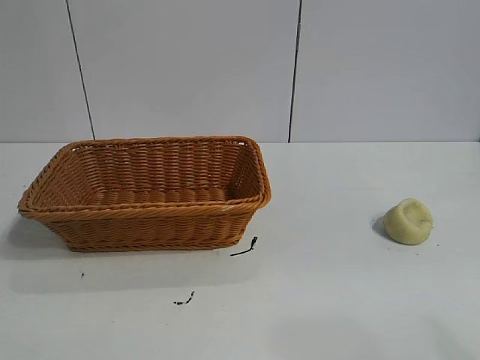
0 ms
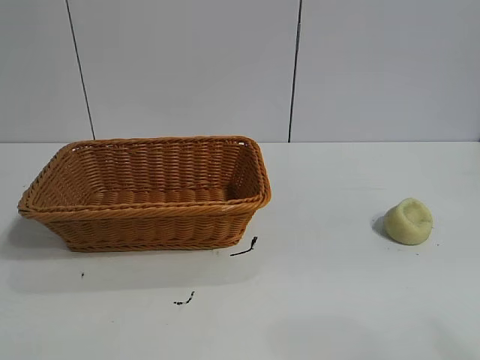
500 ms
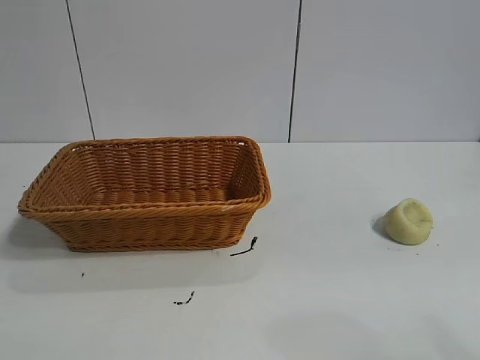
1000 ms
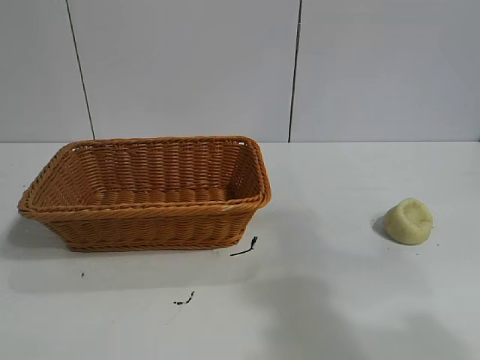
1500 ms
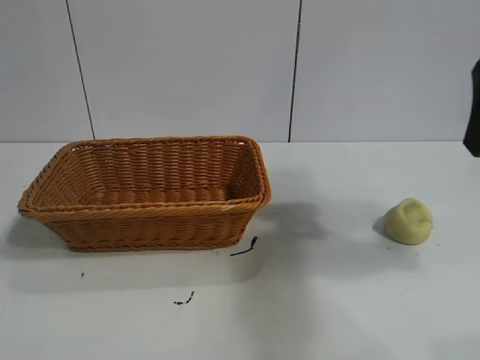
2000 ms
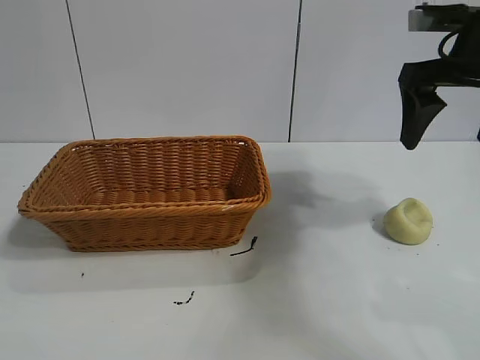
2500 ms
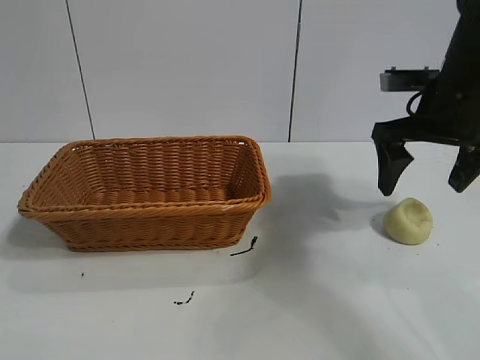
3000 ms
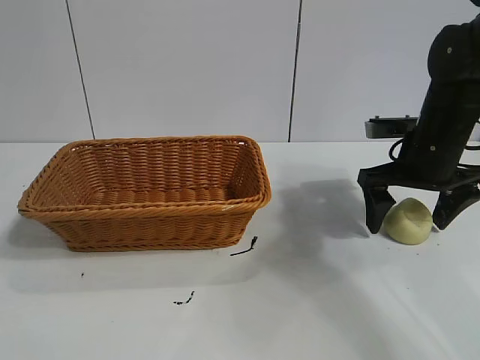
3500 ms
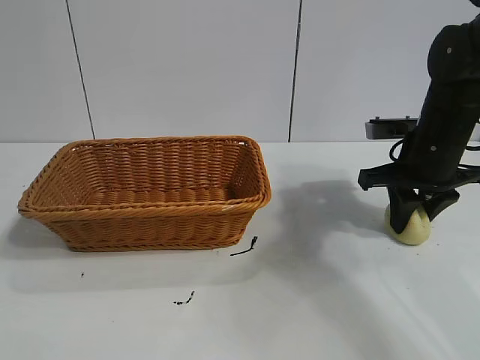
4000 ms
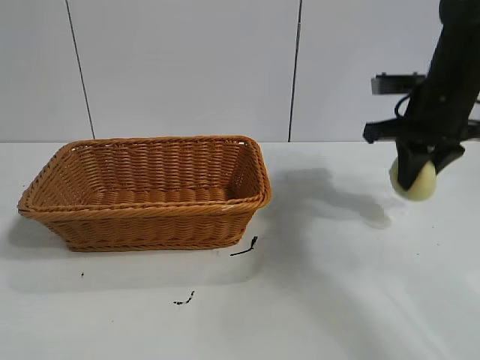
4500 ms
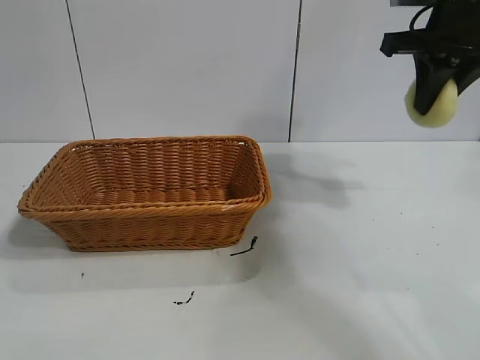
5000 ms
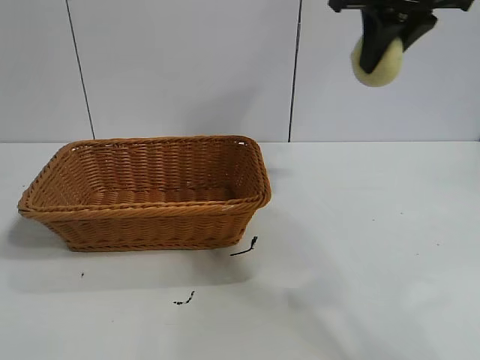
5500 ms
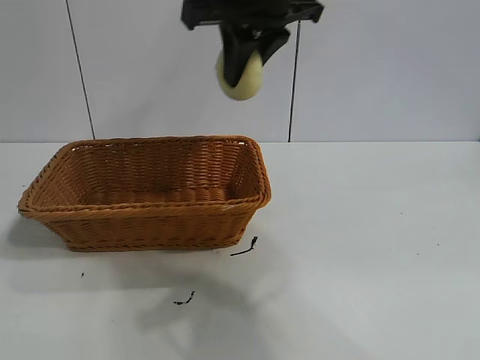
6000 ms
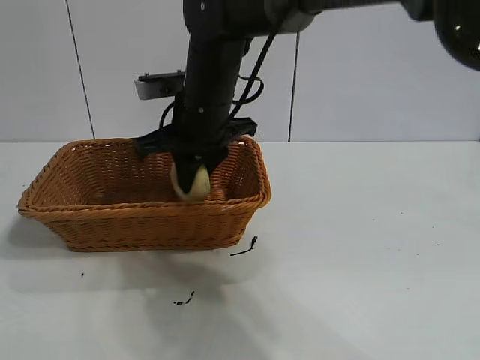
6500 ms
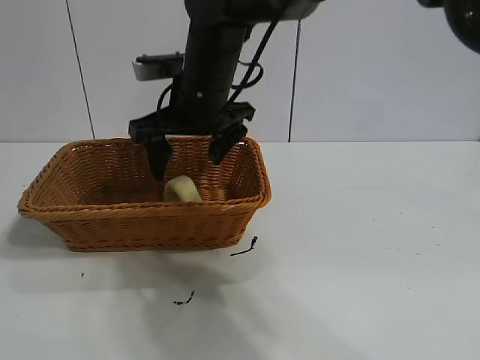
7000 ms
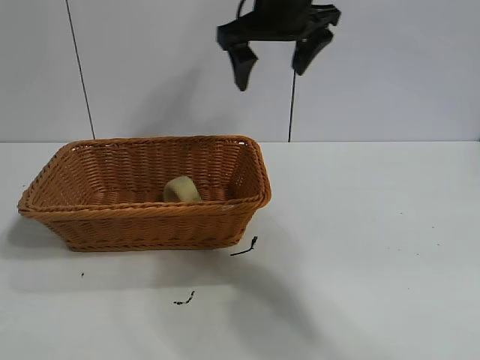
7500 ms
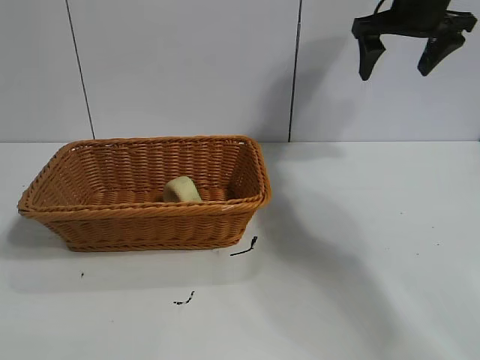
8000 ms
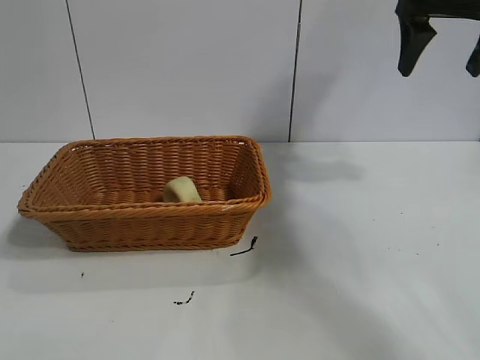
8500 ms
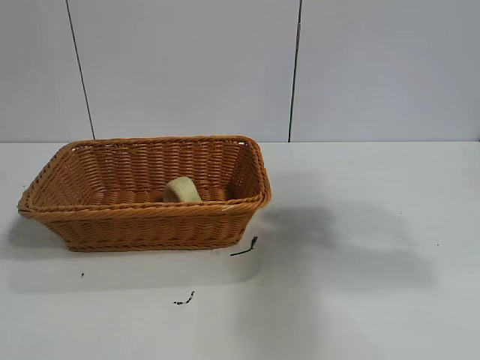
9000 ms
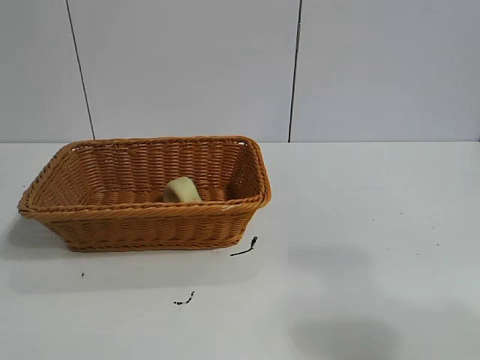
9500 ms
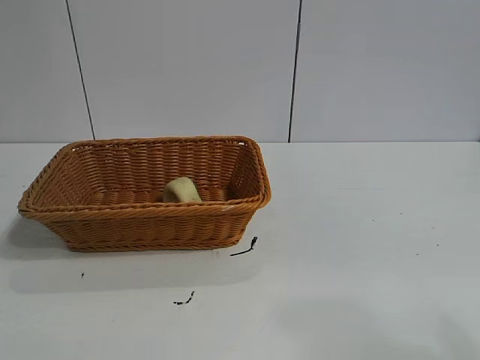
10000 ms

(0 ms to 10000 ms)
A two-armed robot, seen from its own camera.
Task of the whole recording: pick up the egg yolk pastry and put it into the basket.
Step, 1000 ms - 4000 ms: Grasp egg yolk pastry with right gripper.
Step, 4500 ms - 6500 ms: Place the egg yolk pastry in the basket with right gripper.

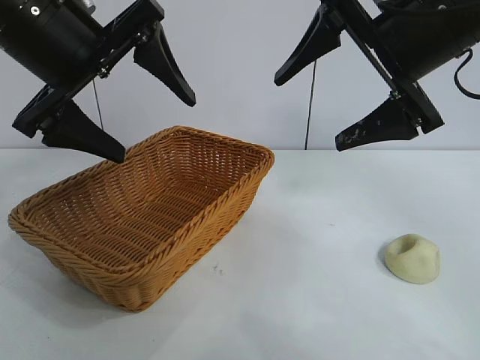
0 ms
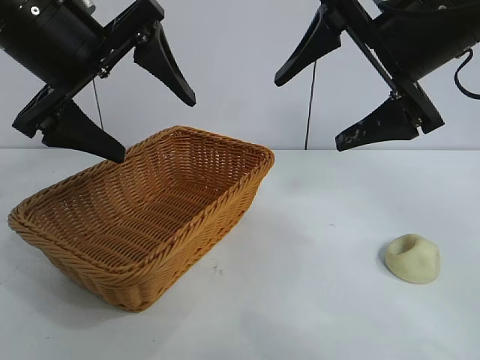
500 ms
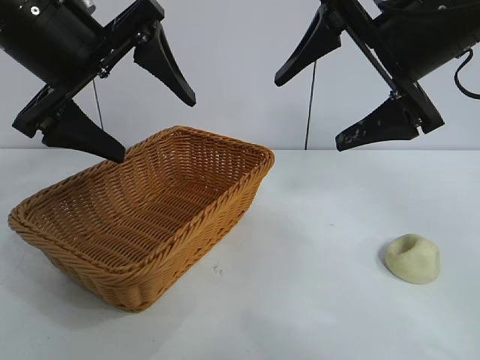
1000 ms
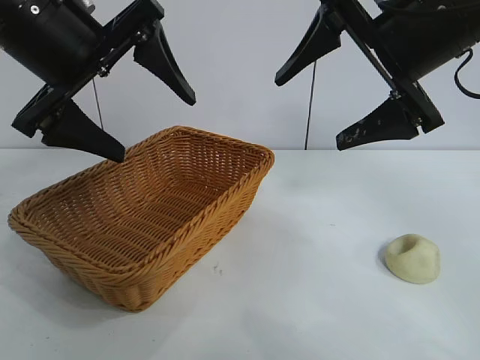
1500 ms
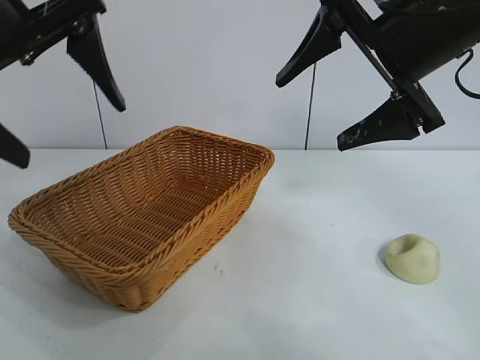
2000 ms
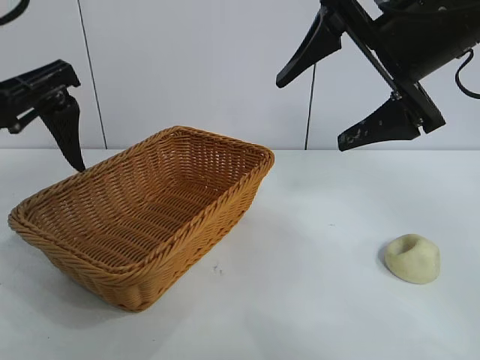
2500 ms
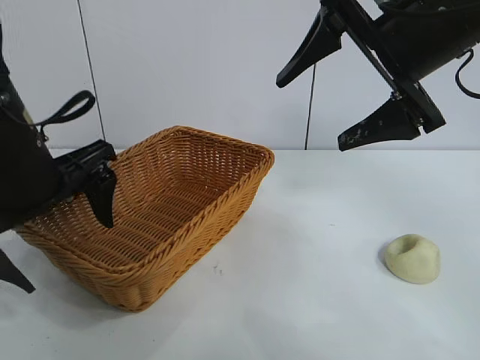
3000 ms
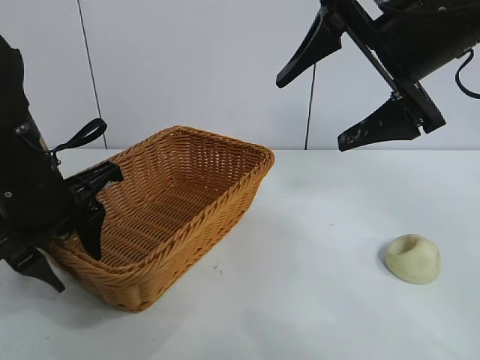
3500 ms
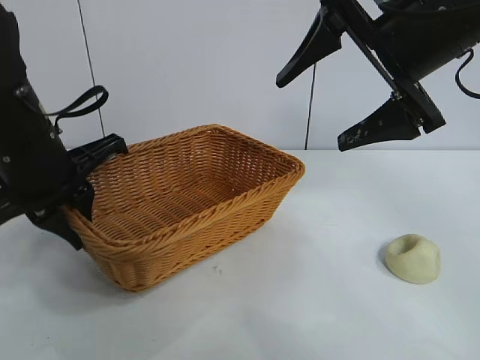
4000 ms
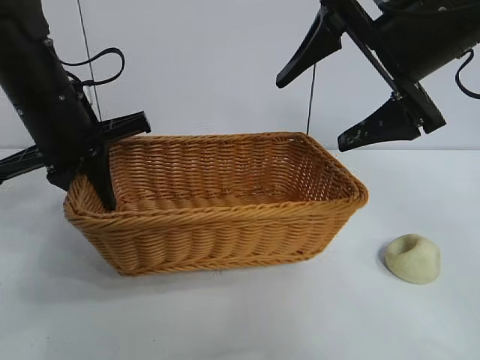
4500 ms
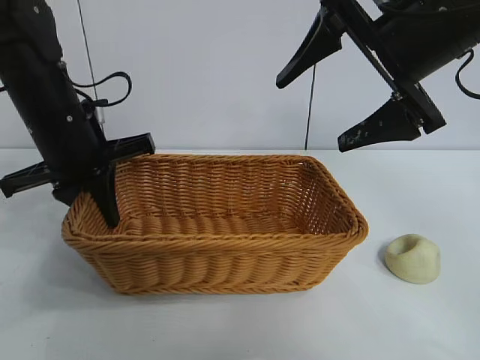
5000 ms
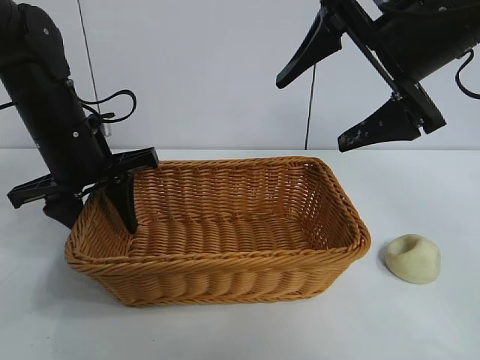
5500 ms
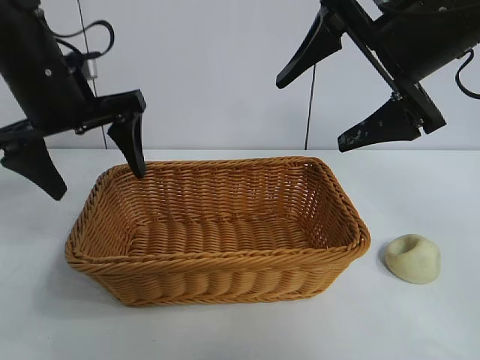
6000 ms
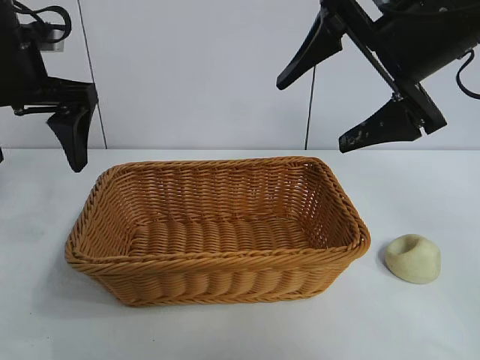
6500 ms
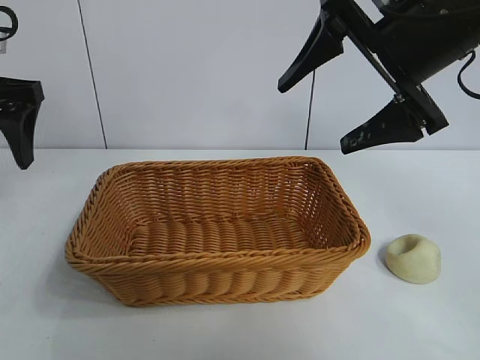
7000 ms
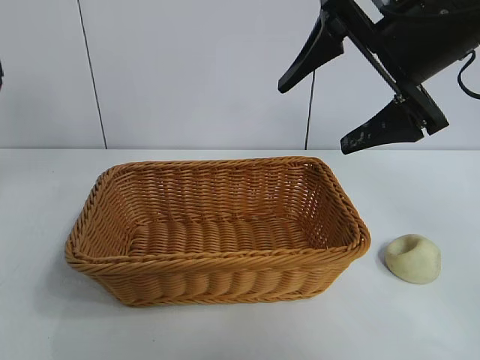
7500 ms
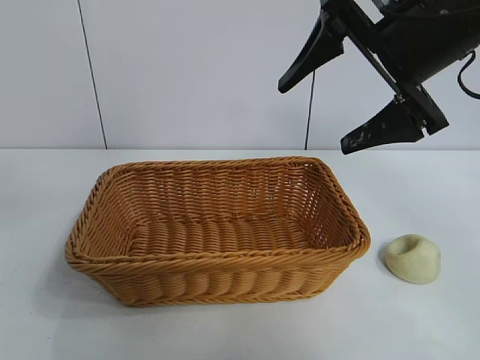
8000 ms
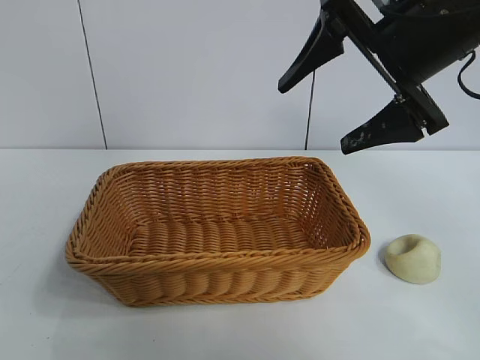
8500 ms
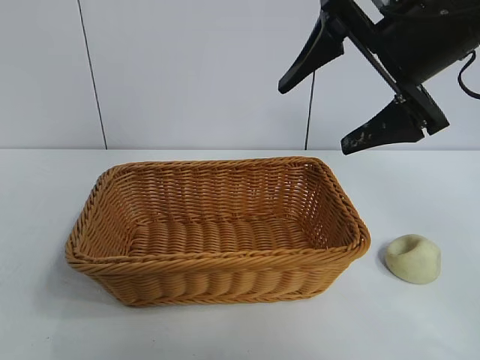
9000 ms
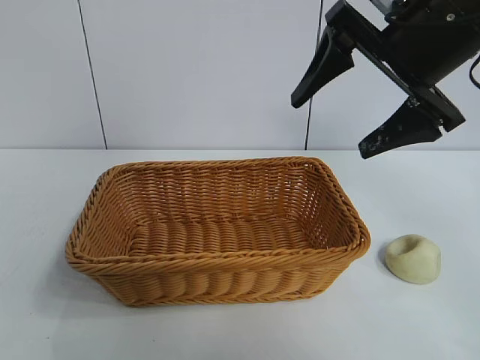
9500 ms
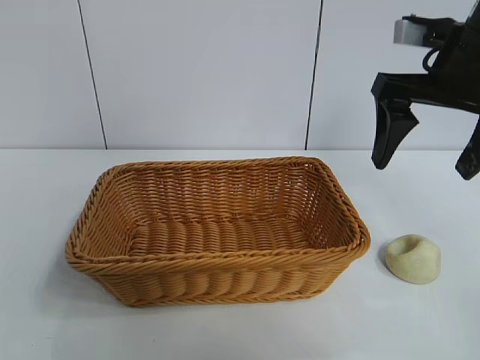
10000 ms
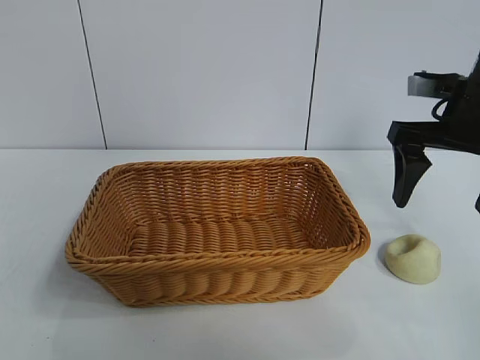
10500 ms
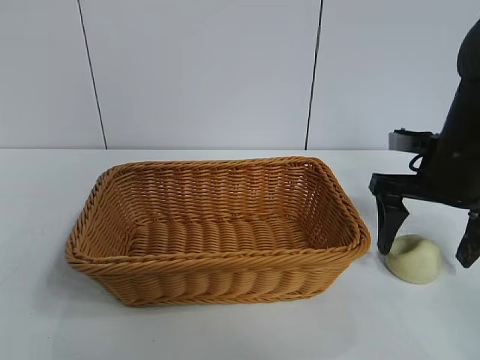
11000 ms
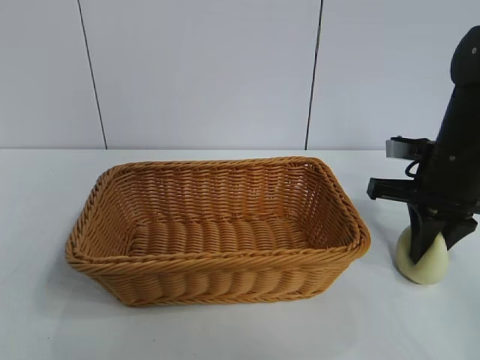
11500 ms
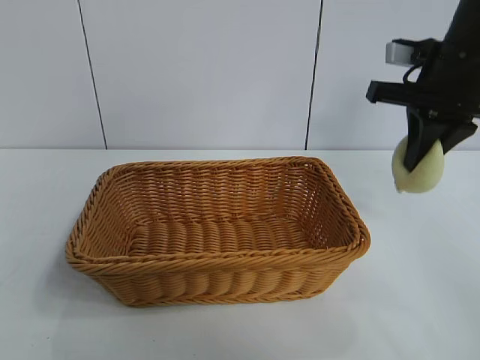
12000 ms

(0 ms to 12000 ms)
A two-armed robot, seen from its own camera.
Task of the whole recording: pick up the egg yolk pastry and put it into the basket.
Step, 1500 ms - 3500 ms: Grasp the basket with left gripper.
Step, 4000 ms - 5500 ms: Place the basket in the center of view with left gripper.
Step, 6000 ms - 11000 ms: Grasp egg yolk pastry with right gripper.

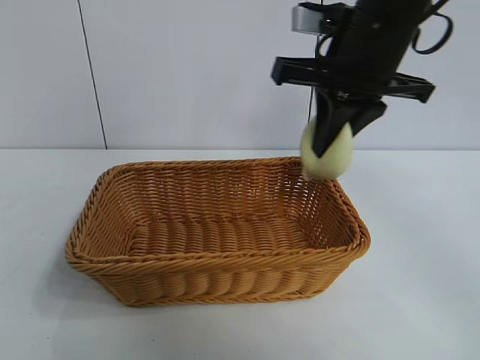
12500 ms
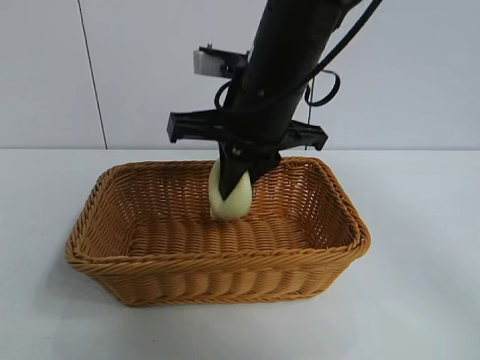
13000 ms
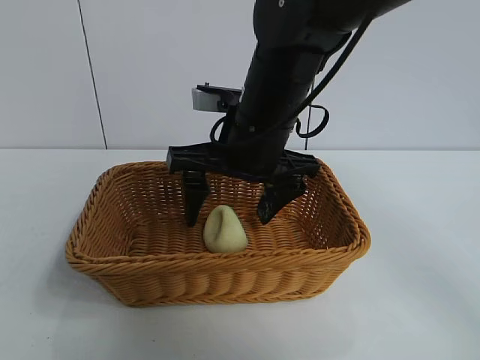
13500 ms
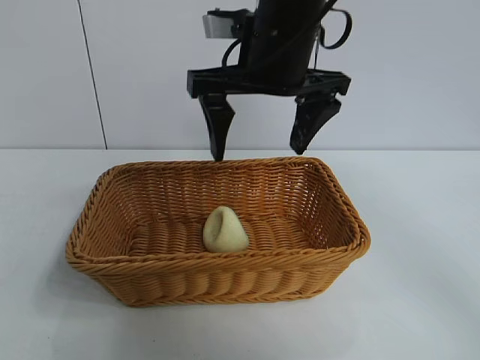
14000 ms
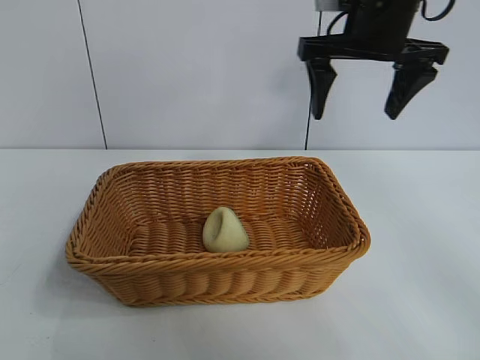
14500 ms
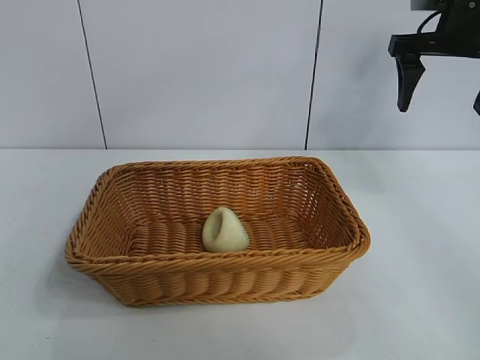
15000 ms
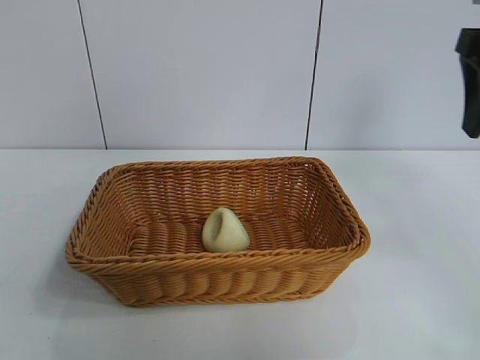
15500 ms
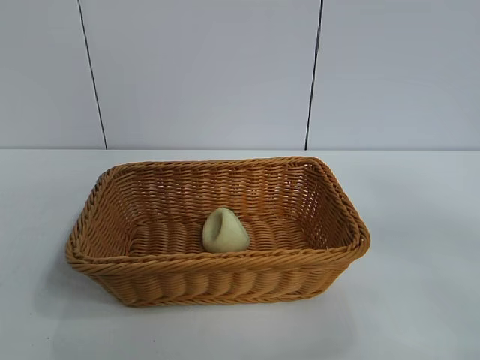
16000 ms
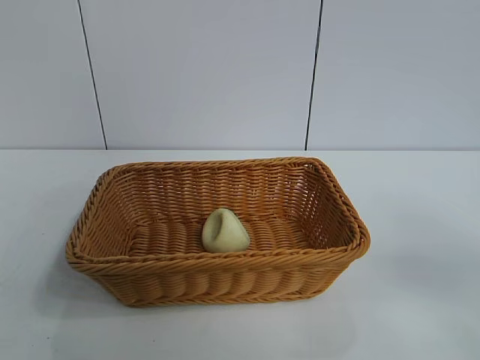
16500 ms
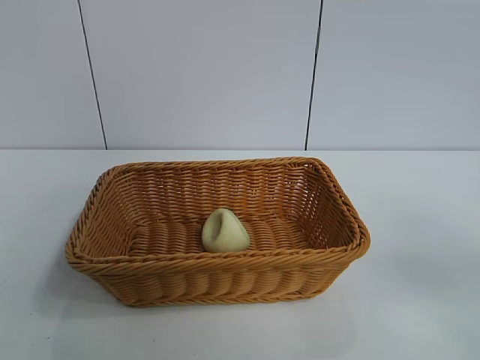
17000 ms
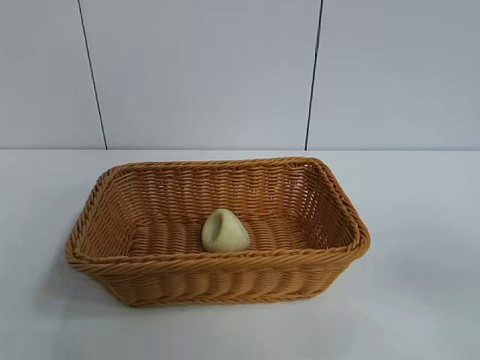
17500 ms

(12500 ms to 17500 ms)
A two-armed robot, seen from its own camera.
Task of the whole recording: pick up the egg yolk pastry and put it into the basket.
Step, 12500 ms - 13500 ms: Place the egg yolk pastry in the basket with right gripper.
